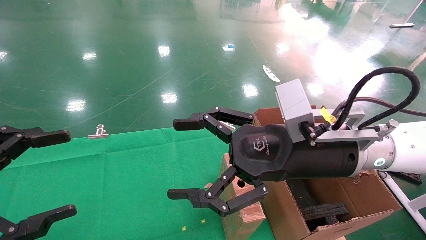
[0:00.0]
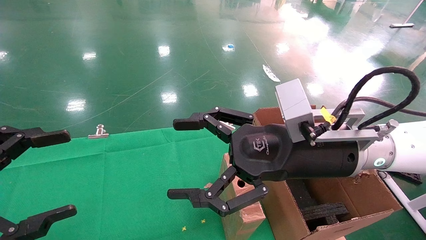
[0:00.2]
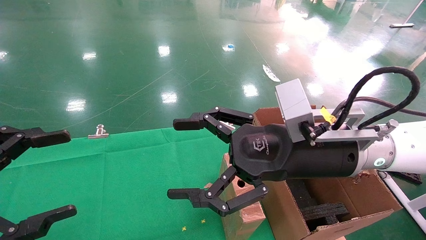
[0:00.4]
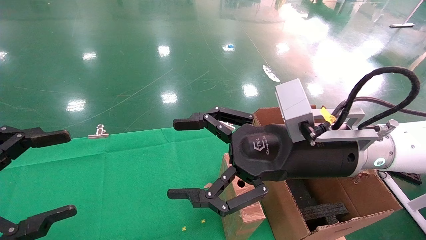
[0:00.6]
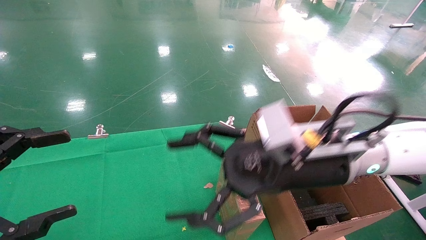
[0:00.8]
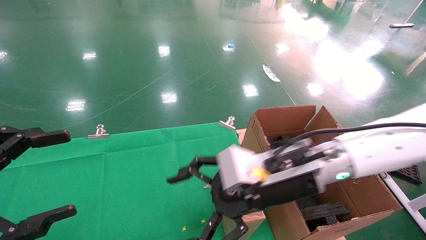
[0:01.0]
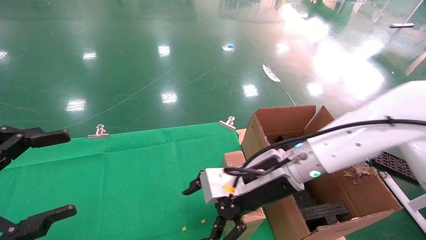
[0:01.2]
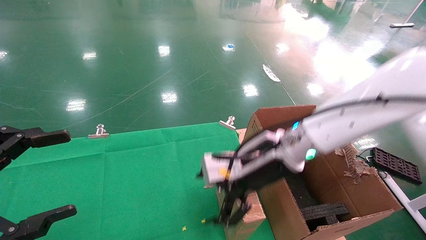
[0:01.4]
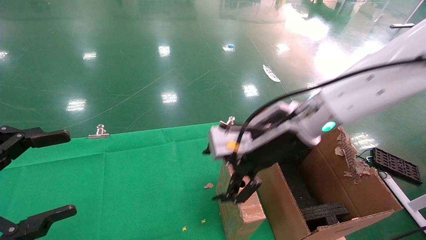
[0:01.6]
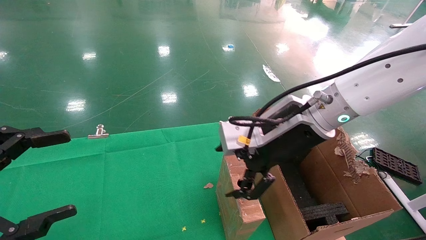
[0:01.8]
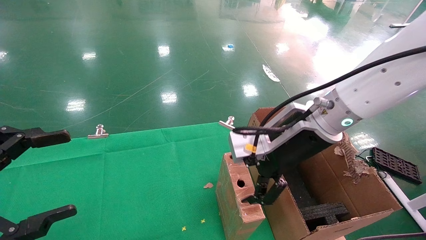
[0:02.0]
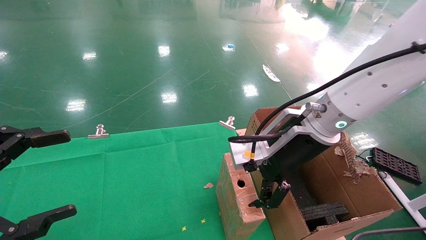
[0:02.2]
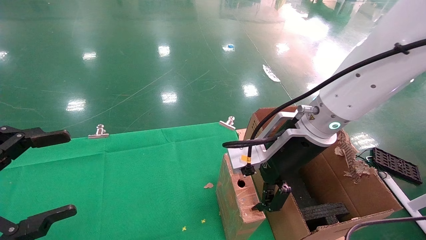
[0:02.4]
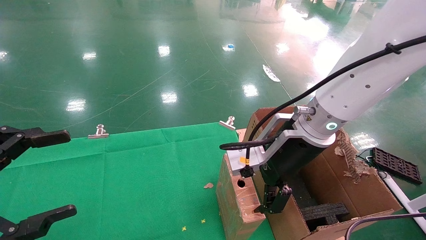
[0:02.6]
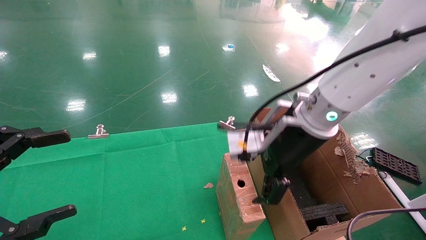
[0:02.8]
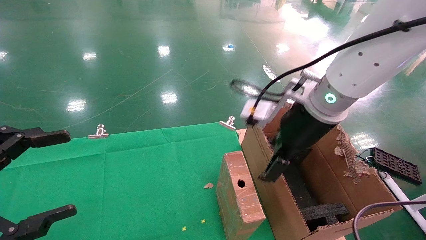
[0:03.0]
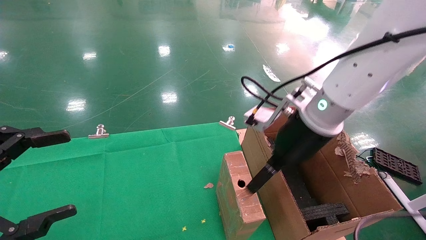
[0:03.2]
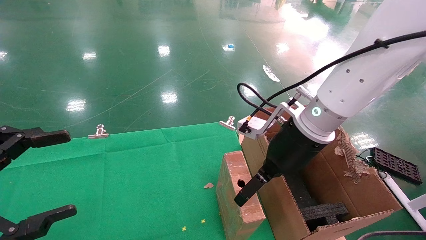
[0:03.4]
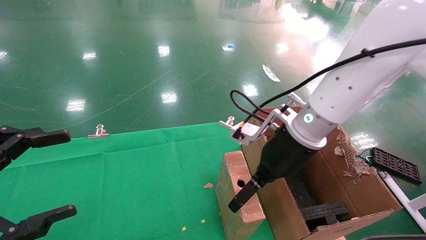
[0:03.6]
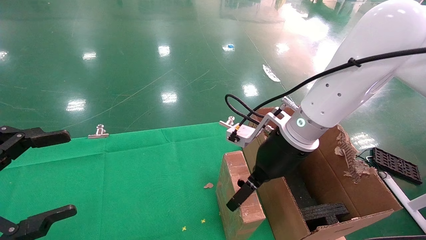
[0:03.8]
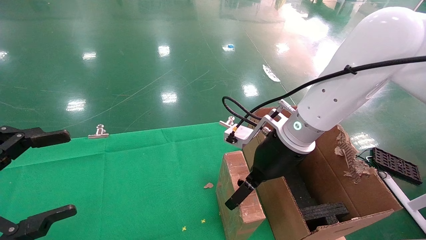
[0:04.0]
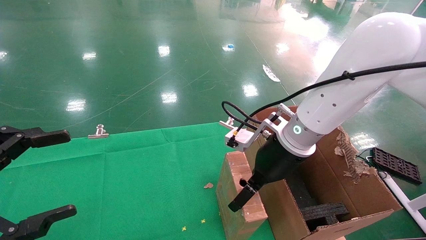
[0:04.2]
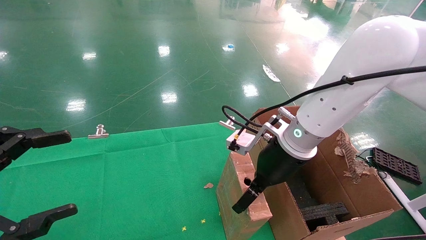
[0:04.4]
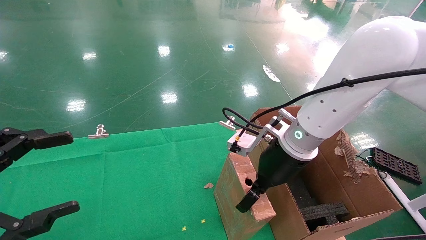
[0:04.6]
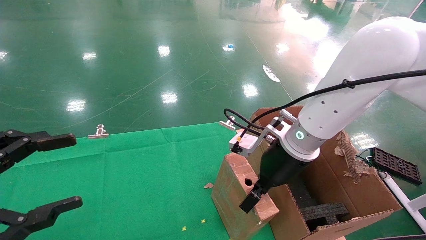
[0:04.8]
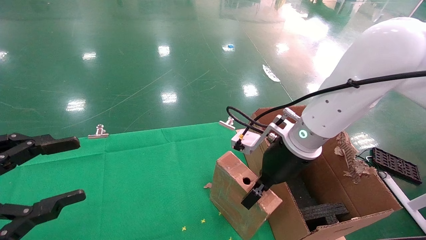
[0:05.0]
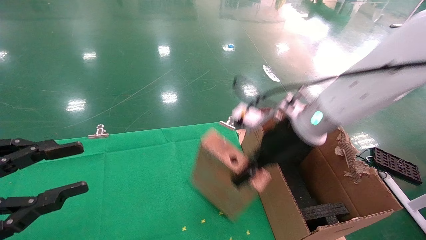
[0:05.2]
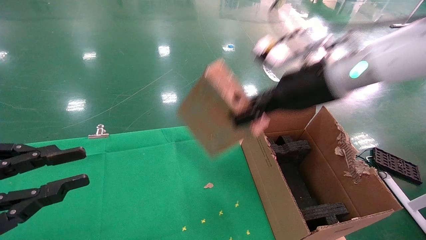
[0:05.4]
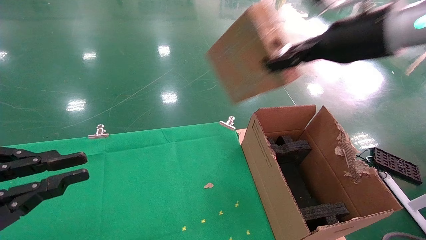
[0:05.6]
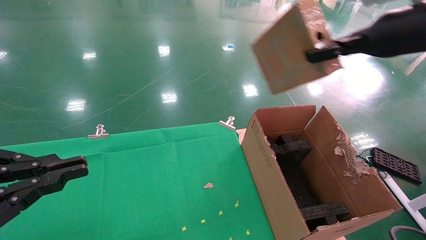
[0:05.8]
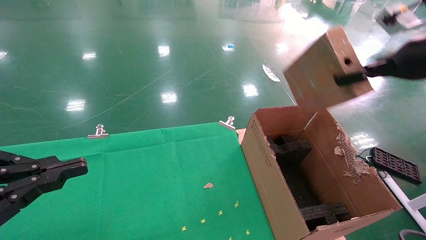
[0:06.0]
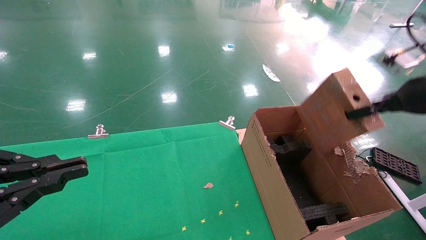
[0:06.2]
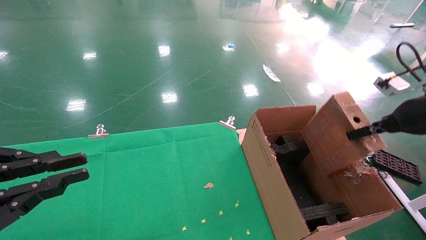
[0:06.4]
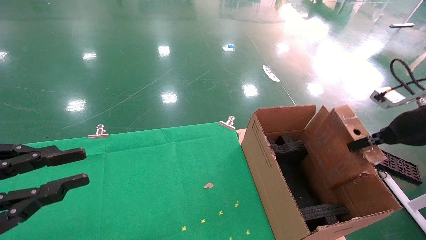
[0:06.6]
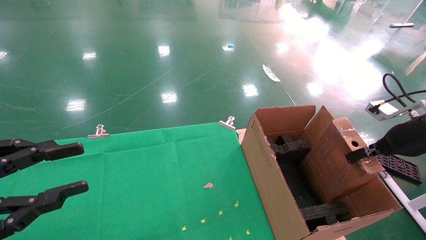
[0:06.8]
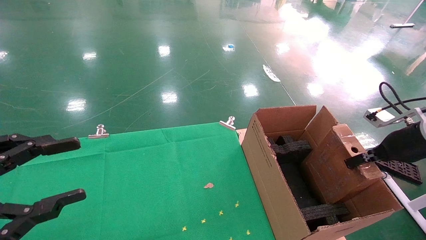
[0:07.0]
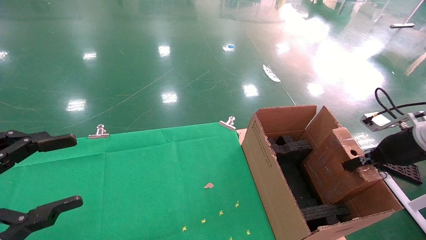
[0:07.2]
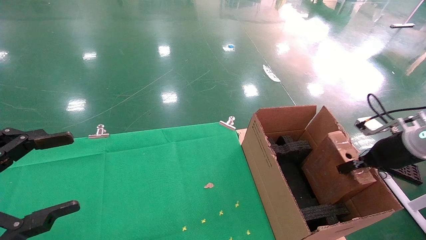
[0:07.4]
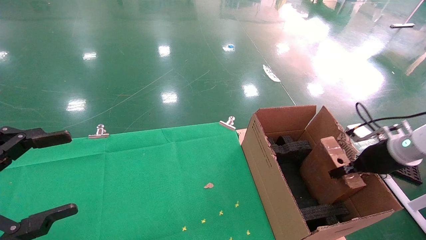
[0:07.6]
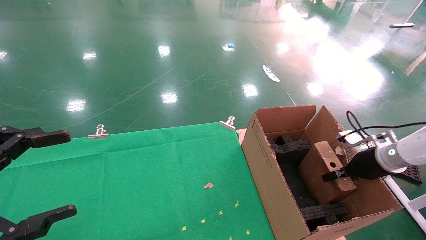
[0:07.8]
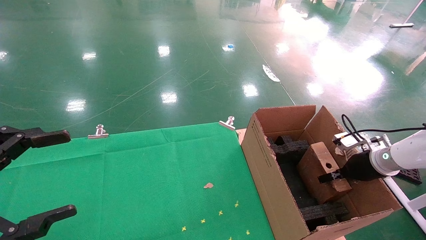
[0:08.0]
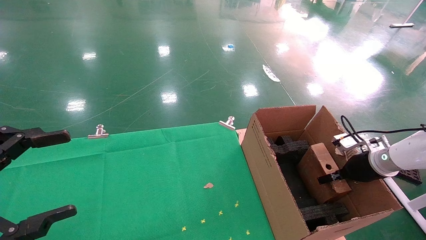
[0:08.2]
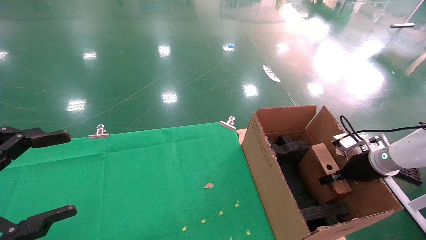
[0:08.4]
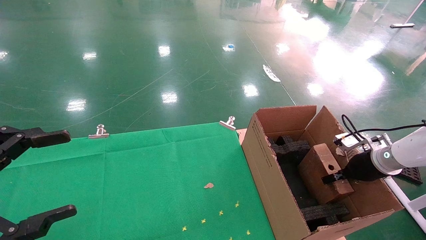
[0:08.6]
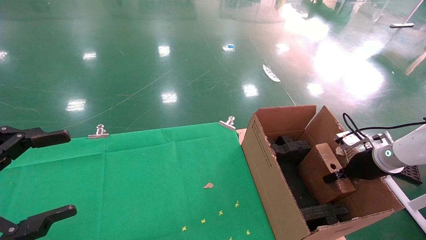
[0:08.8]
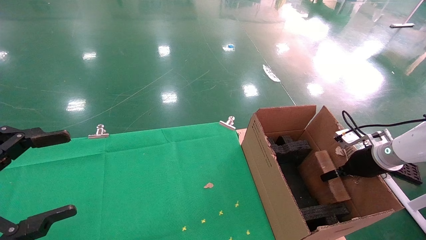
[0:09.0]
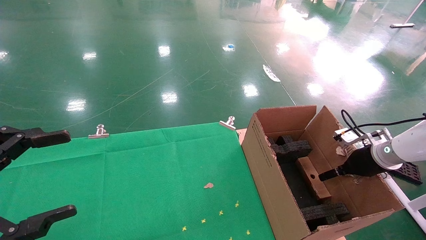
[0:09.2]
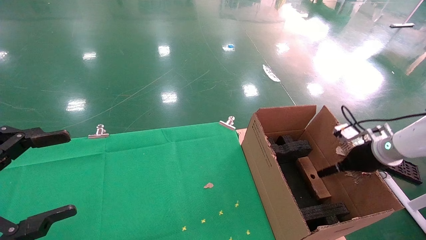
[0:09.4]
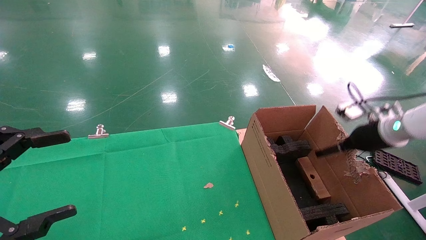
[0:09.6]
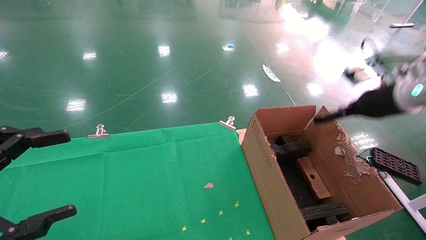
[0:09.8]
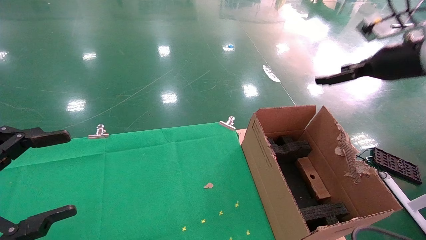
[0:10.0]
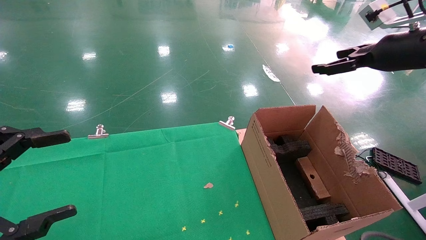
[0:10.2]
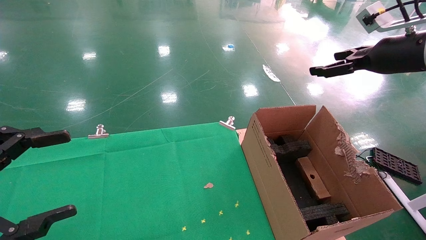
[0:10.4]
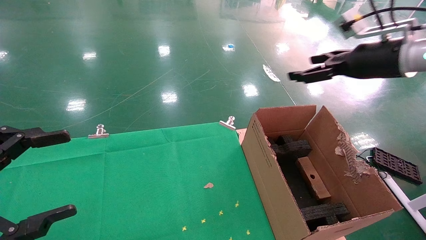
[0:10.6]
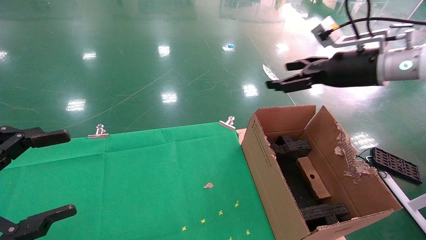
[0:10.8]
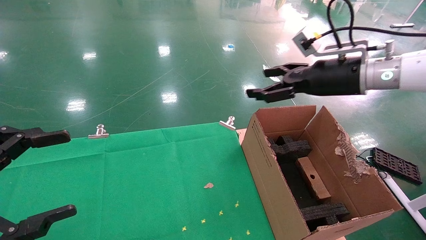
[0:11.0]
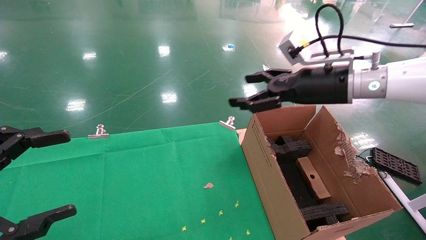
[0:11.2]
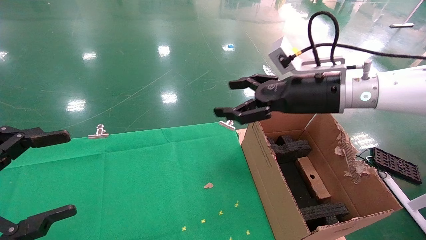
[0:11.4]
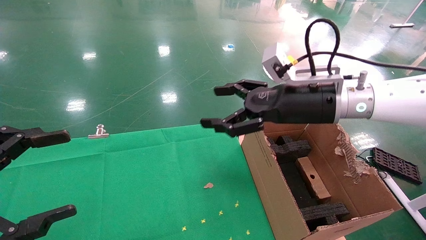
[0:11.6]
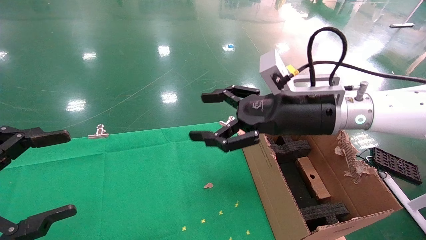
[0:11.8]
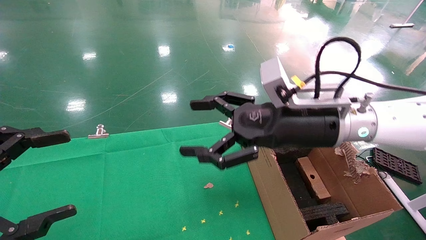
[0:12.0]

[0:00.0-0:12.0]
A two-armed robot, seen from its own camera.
Task of the whole recording: using a robotic arm to pick up a cardboard box and palace it the carton.
Step, 0:01.0 to 0:05.0: Pick up the mouse and the power cord paper box.
Step, 0:05.2 to 0:09.2: Place the mouse and the power cord paper box into the container.
0:00.0 to 0:01.6: The right gripper moves forward, approximately 5 cm.
0:03.0 to 0:04.4: The right gripper goes some 5 cm downward.
0:04.4 to 0:06.0: The left gripper closes up. Meanwhile the right gripper heads to the right and upward, covering approximately 25 cm, and closes up.
0:06.0 to 0:07.6: The left gripper opens; the right gripper goes about 20 cm downward.
0:07.6 to 0:09.0: The grippers move only a little.
0:09.0 to 0:10.4: The right gripper goes roughly 25 cm upward, and opens.
0:10.4 to 0:12.0: The right gripper goes about 25 cm to the left and downward.

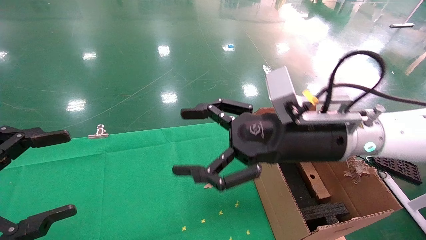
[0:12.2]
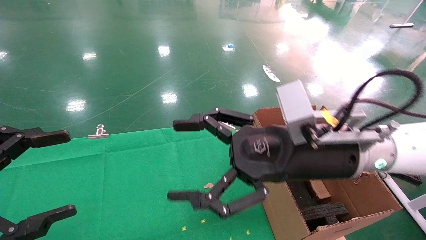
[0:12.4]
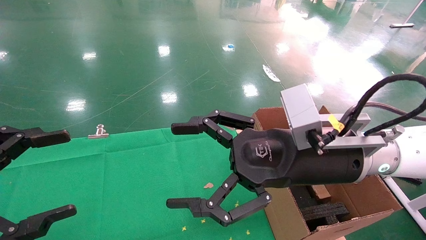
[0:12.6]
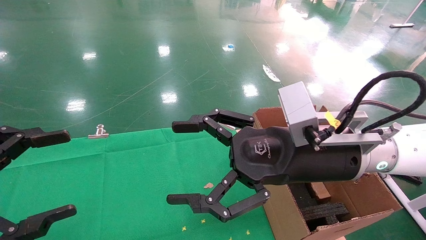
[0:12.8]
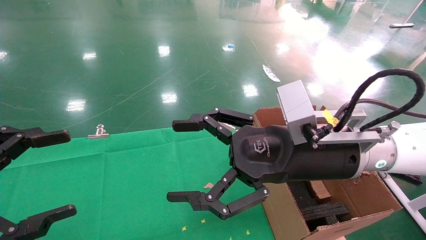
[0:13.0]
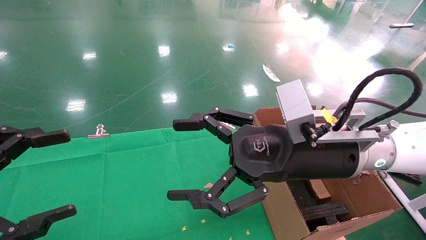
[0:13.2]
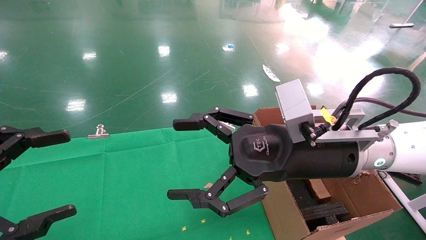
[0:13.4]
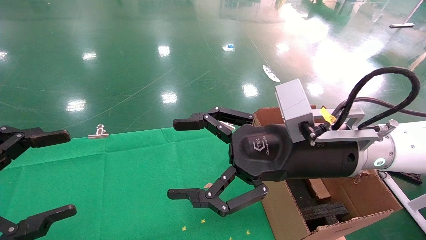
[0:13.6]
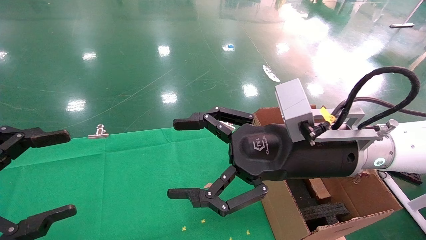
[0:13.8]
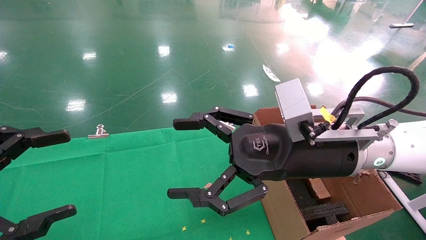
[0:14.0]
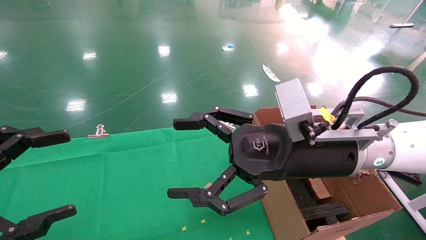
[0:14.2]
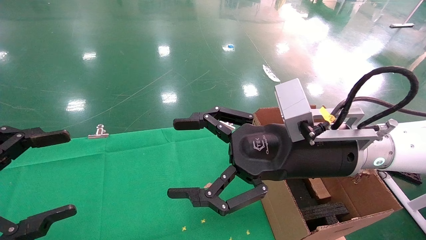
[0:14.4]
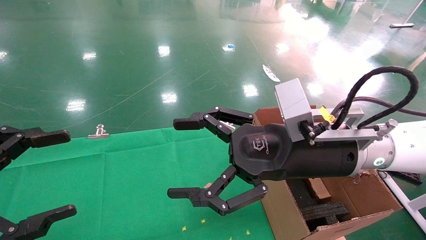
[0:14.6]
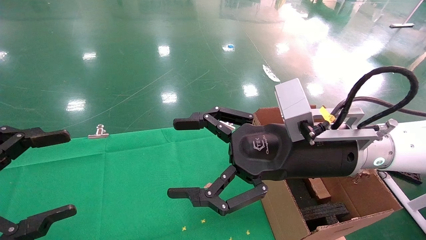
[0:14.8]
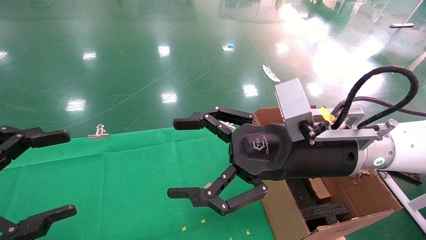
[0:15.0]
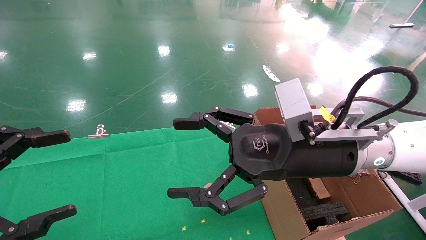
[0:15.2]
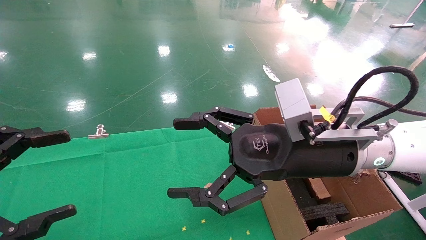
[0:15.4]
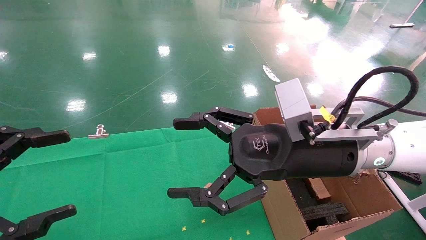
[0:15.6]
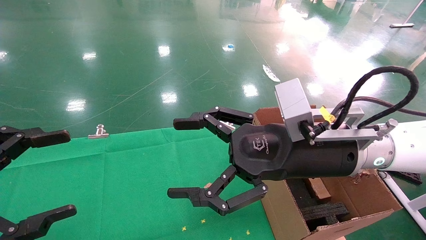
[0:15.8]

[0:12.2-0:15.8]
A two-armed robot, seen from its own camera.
Task of the whole recording: using a robotic arm to pick up a cardboard box and palace it the carton.
0:12.2 to 0:14.0: There are only small adjustments of the grippers.
0:14.0 to 0:15.8: Neither gripper changes place.
